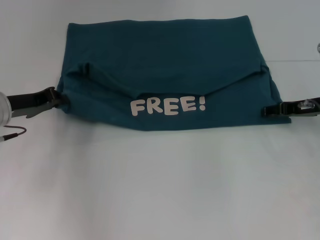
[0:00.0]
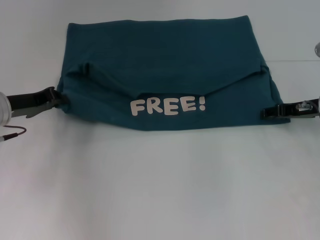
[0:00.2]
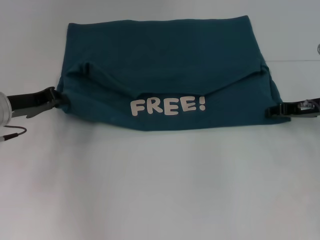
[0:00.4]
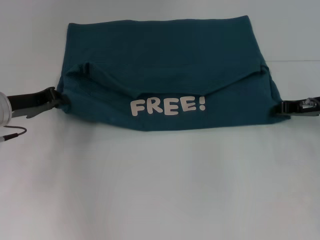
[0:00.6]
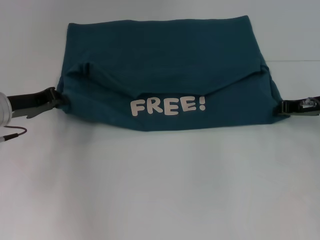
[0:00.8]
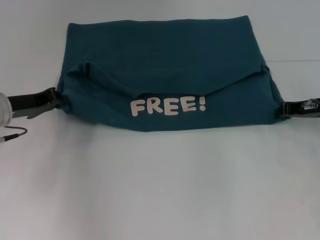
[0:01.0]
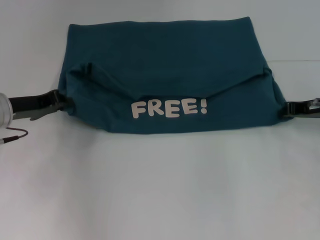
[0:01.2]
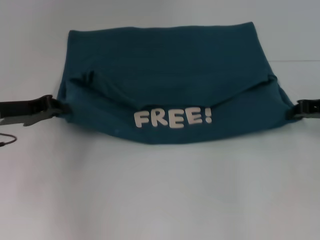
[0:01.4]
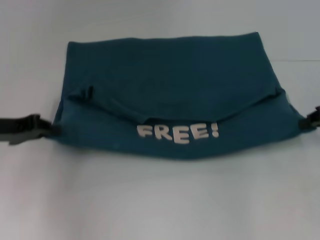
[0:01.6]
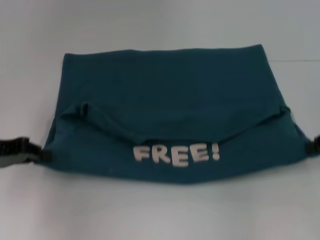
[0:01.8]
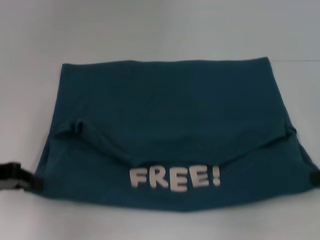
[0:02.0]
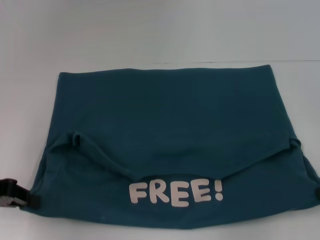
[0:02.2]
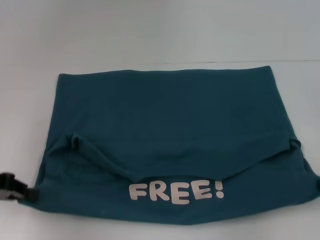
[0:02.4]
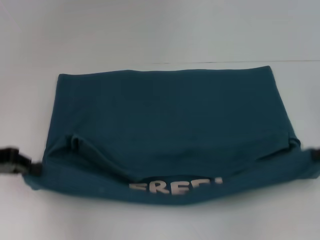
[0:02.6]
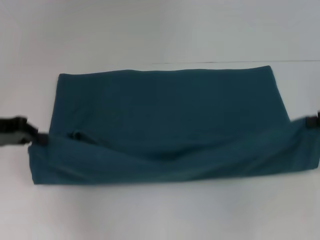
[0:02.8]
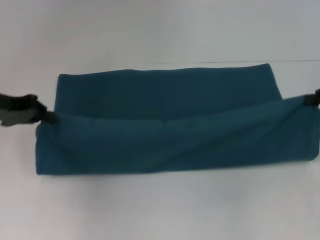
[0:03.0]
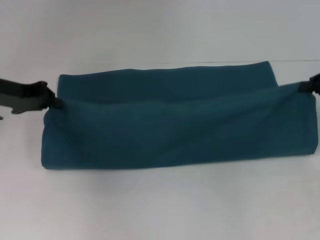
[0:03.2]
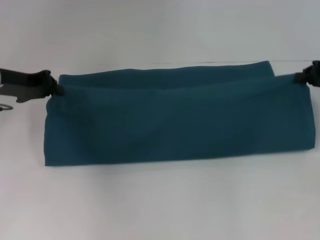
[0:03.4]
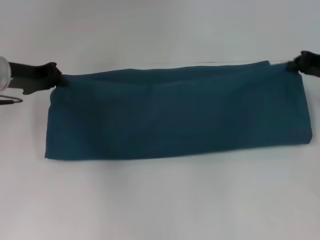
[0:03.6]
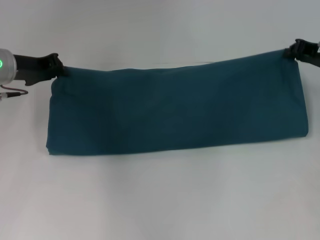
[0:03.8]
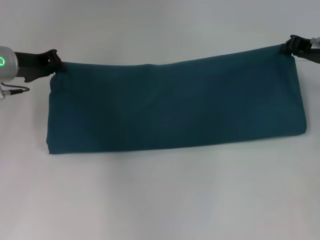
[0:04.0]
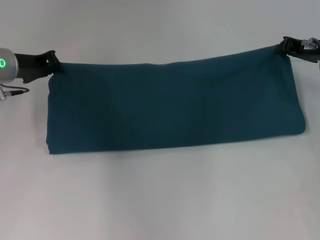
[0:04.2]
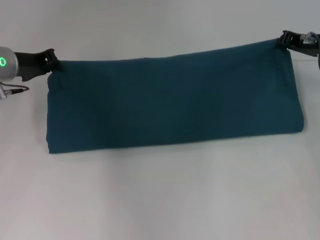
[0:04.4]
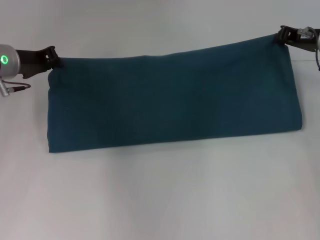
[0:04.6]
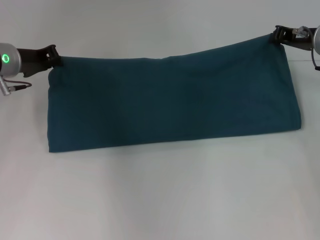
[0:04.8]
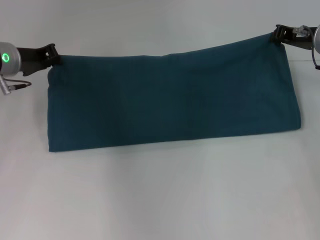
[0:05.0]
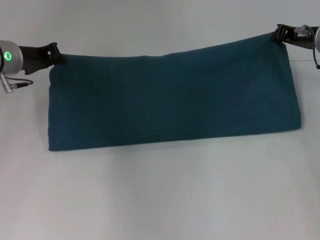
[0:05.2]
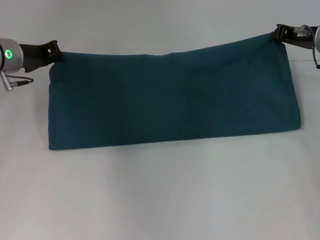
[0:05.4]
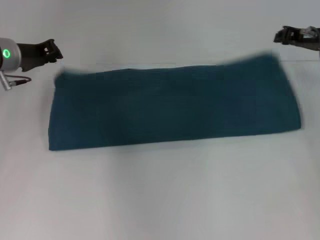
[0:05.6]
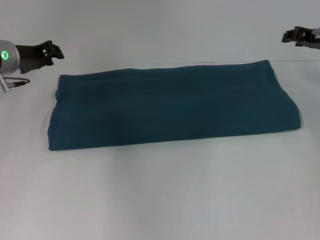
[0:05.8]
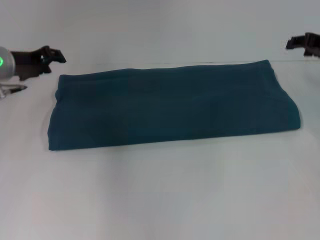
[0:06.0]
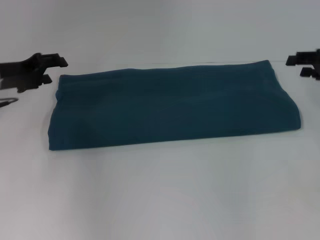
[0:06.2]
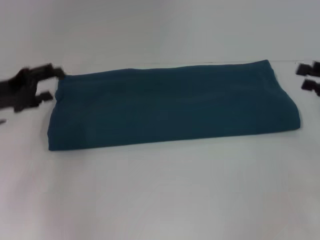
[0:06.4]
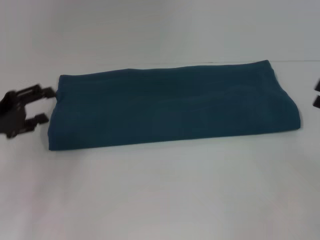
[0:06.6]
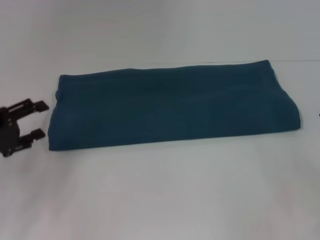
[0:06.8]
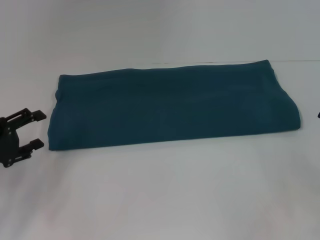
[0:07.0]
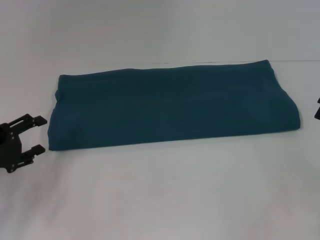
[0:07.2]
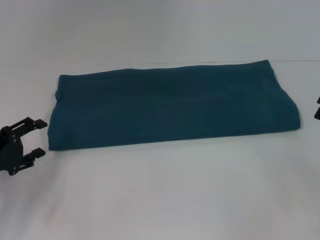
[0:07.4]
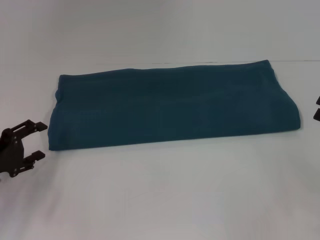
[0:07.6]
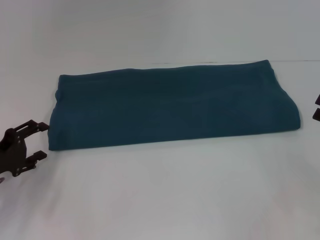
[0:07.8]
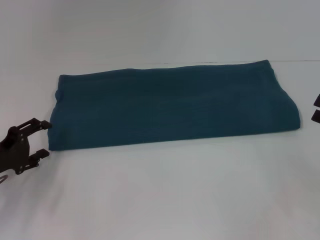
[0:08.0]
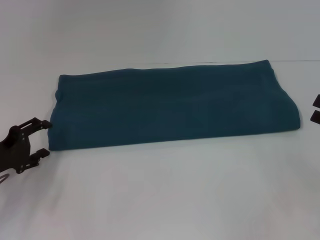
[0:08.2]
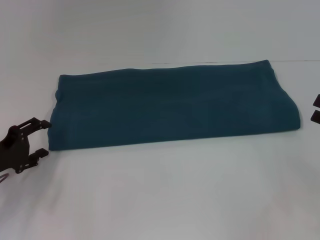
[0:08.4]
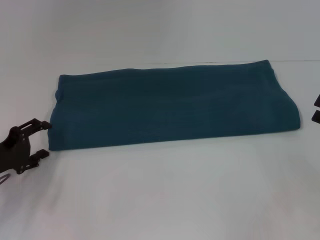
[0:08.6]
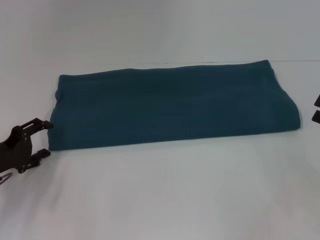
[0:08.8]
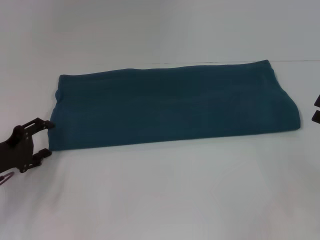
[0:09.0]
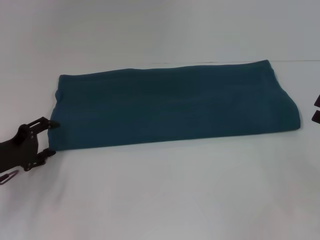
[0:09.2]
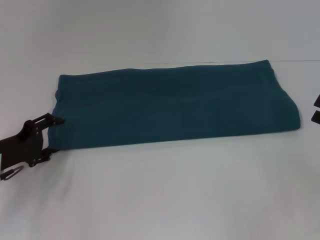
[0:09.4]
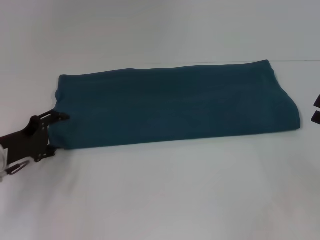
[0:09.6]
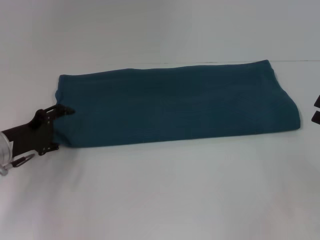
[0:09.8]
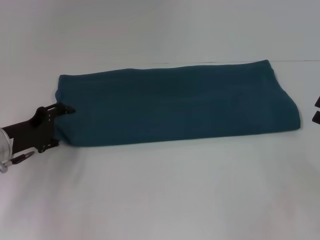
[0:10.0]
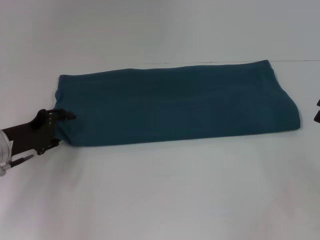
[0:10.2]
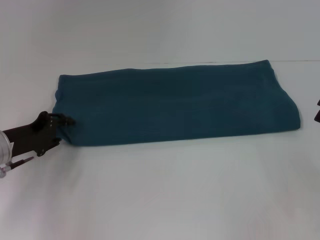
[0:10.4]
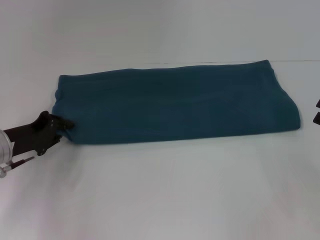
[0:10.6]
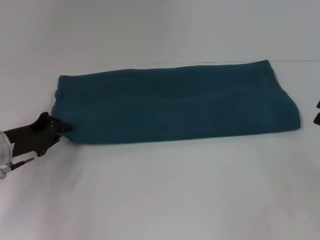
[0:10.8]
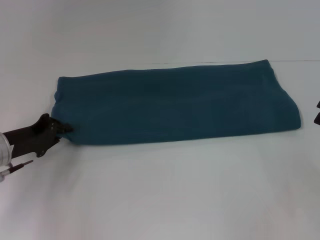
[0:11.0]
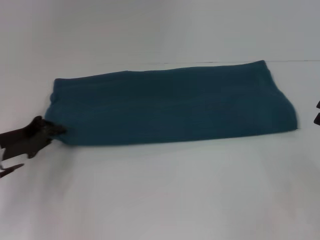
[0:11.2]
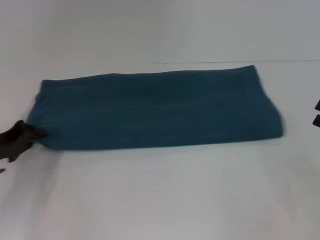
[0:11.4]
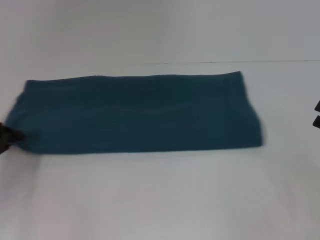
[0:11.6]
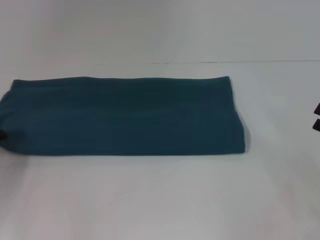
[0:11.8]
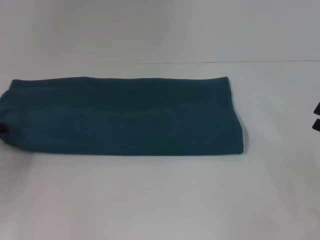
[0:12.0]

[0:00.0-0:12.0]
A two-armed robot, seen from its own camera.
Step, 0:00.0 to 0:02.0: Pull the clothes with your left hand.
Step, 0:00.0 to 0:02.0: Pull the clothes with your right hand.
Step, 0:02.2 to 0:05.8: Fold the clothes to the right.
0:00.0 to 0:01.6: The right gripper travels to the right and upward by some 10 cm, and closes up, while the left gripper shifts by about 5 cm.
0:01.6 to 0:03.0: The left gripper shifts by about 5 cm.
0:03.0 to 0:04.4: The left gripper goes about 5 cm forward, while the right gripper heads forward and to the left, covering some 10 cm.
0:04.4 to 0:06.0: The right gripper opens its fingers.
0:06.0 to 0:07.6: The left gripper shifts some 20 cm backward and downward, and opens up. Meanwhile the right gripper goes approximately 20 cm backward.
0:07.6 to 0:09.0: The grippers stay close to where they were, moving slightly.
0:09.0 to 0:10.4: The grippers move only a little.
0:10.4 to 0:12.0: The left gripper travels to the left by roughly 10 cm, and closes its fingers.

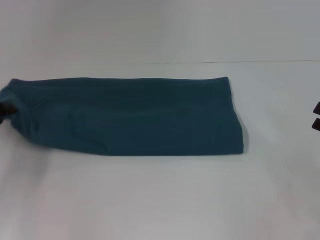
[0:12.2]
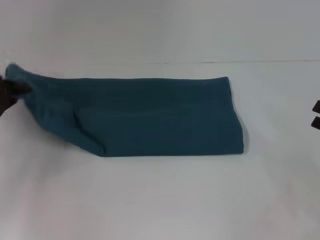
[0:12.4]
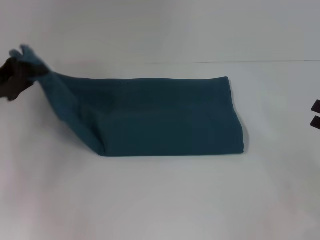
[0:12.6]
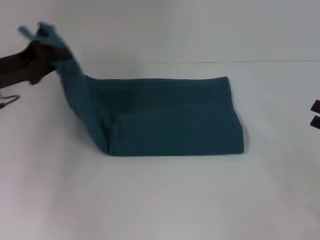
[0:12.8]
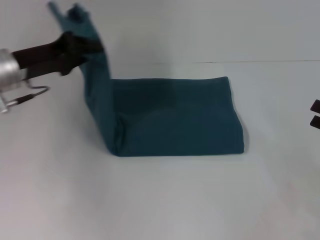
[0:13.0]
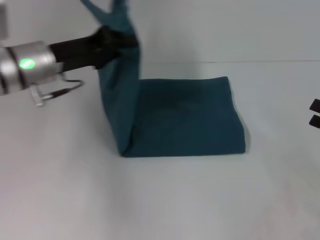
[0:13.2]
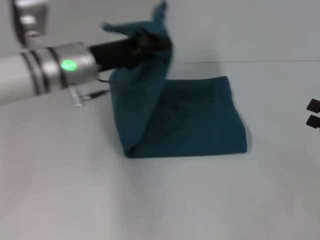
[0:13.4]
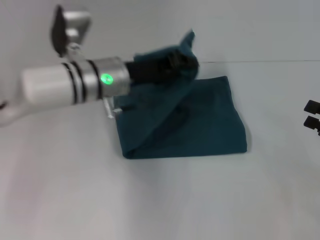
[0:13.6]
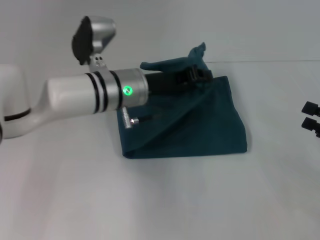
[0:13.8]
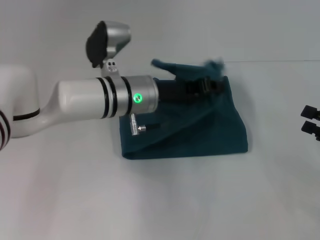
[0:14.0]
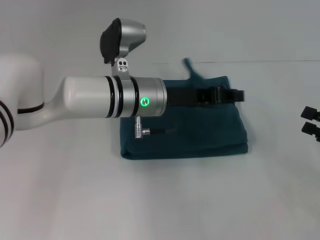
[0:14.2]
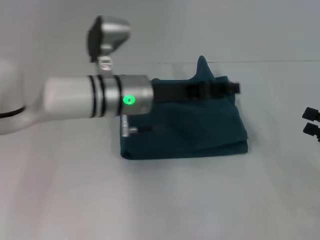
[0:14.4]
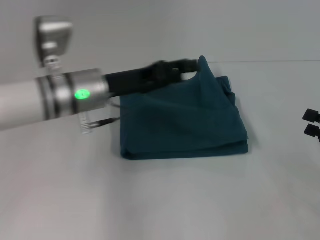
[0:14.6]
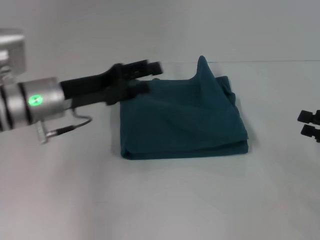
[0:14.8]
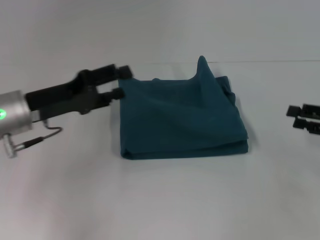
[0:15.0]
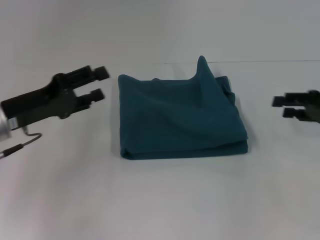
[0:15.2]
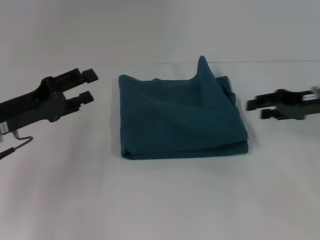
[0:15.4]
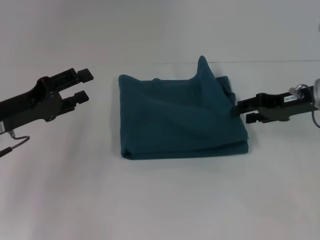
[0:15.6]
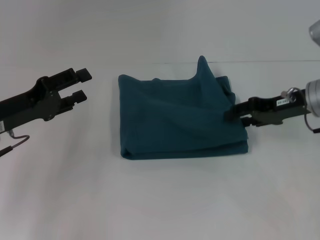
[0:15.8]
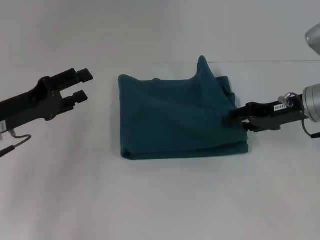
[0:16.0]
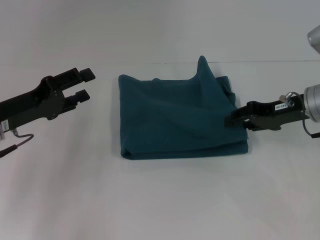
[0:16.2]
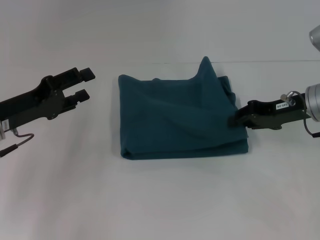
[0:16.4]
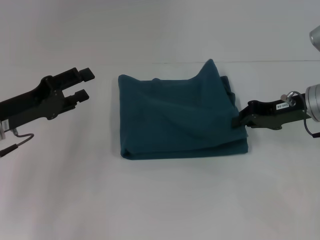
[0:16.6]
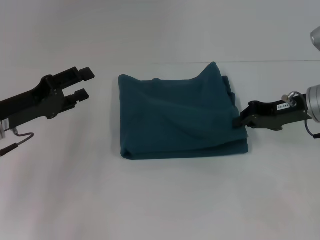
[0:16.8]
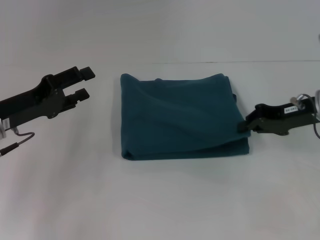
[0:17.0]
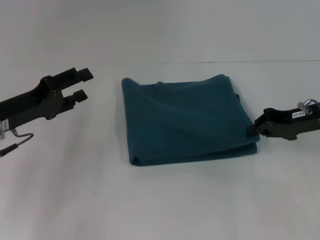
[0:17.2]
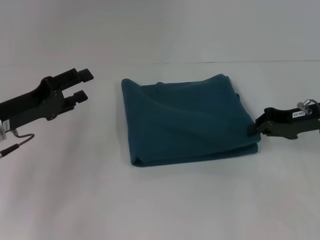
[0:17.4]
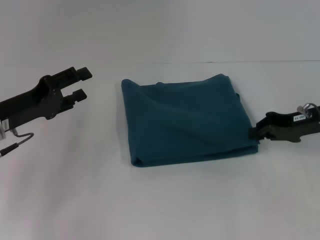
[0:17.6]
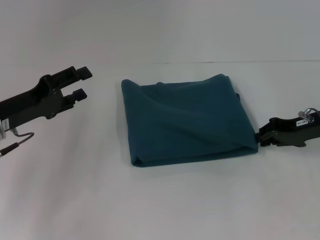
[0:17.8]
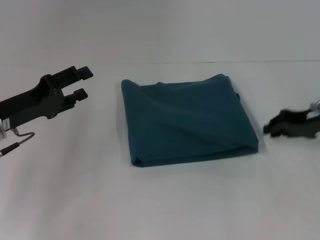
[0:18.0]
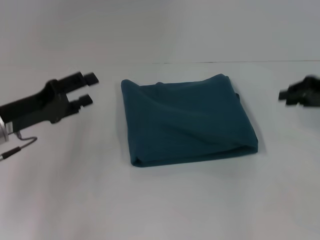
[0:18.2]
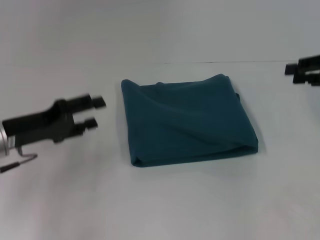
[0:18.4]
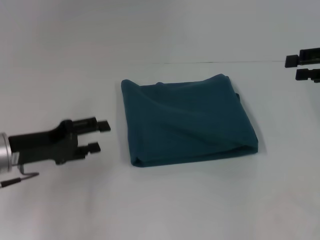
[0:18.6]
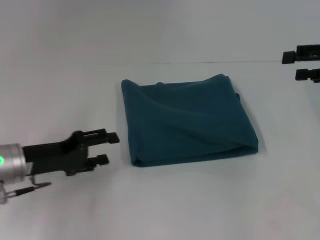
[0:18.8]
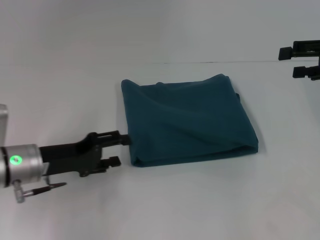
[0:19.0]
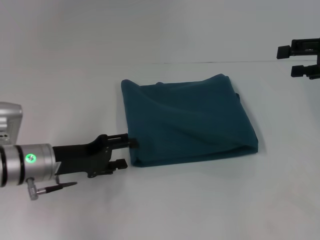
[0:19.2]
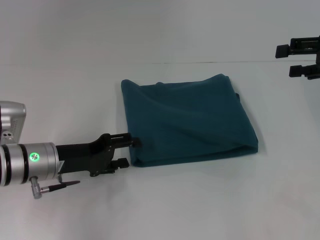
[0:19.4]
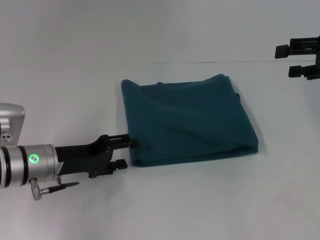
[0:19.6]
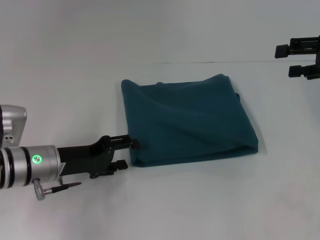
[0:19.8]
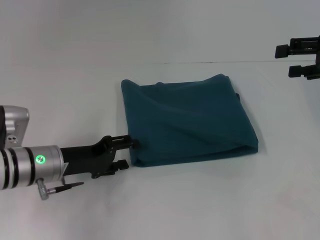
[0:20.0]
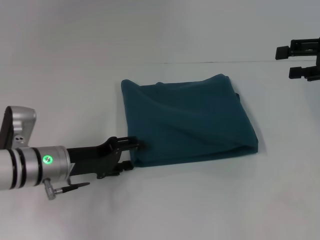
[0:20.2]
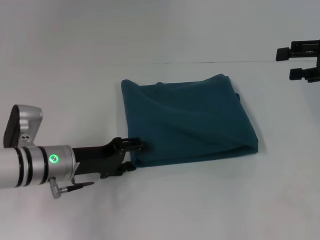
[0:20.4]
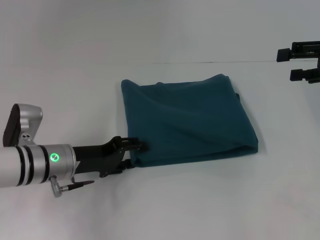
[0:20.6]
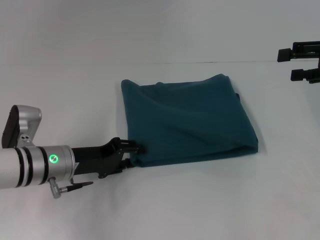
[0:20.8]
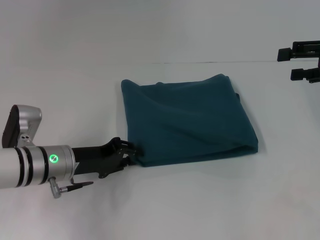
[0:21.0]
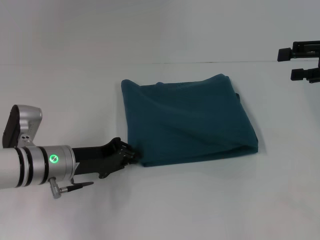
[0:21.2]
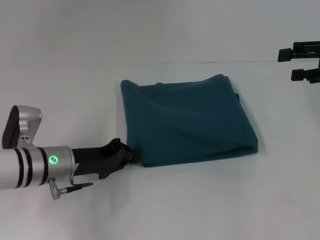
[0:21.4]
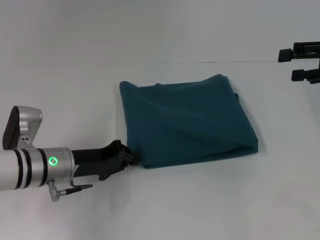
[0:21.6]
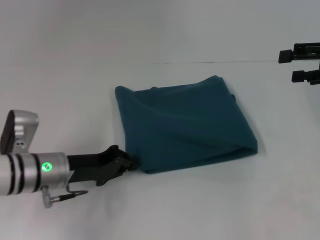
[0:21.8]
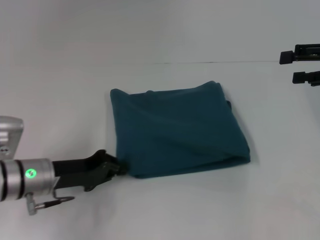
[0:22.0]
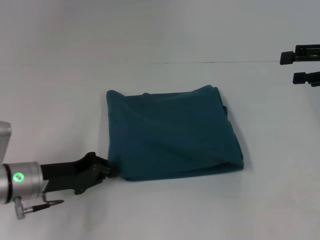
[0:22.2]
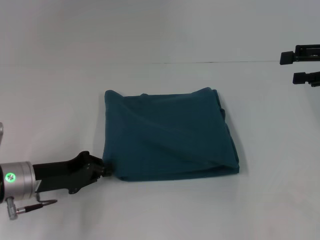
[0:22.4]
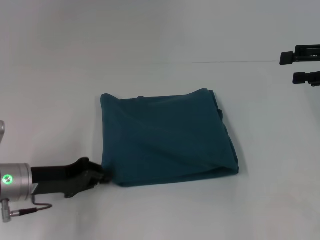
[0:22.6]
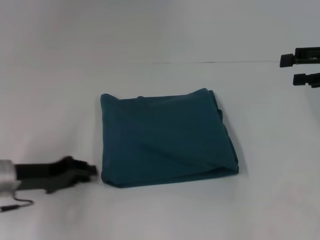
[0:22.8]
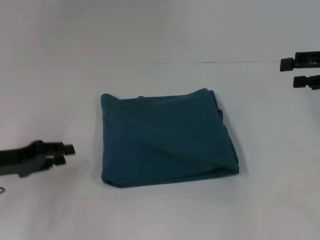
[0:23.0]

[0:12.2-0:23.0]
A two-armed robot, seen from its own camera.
Step, 0:12.2 to 0:14.4: Fold the clothes to the left.
0:12.2 to 0:13.8: The left gripper goes about 30 cm to the right.
0:13.8 to 0:15.2: The left gripper is displaced to the left and backward by roughly 20 cm, and opens. Meanwhile the right gripper is displaced forward by about 10 cm.
0:15.2 to 0:16.8: The right gripper goes about 10 cm to the left, and closes.
0:16.8 to 0:18.4: The right gripper travels to the right and upward by some 10 cm.
0:18.4 to 0:20.0: The right gripper opens up. Meanwhile the left gripper goes roughly 10 cm to the right and downward.
0:20.0 to 0:21.4: The left gripper closes up.
0:21.4 to 0:23.0: The left gripper goes approximately 10 cm to the left.
